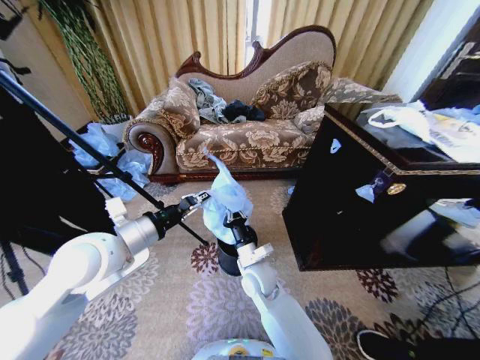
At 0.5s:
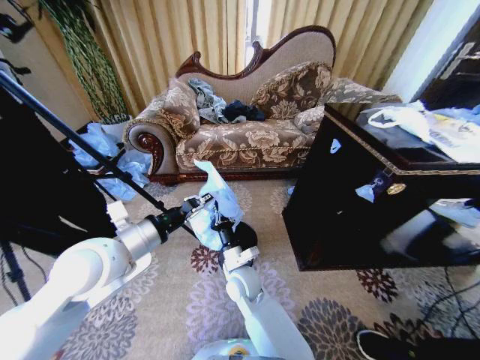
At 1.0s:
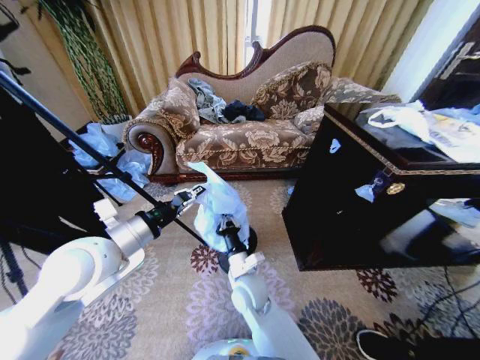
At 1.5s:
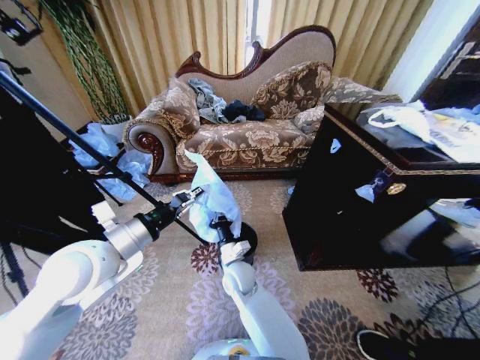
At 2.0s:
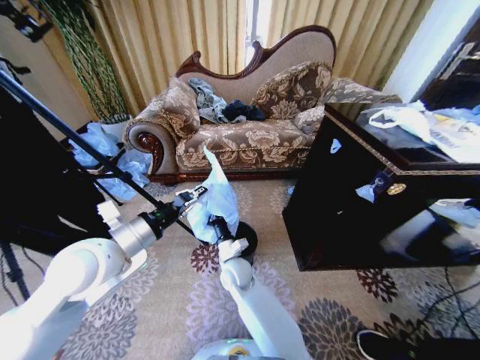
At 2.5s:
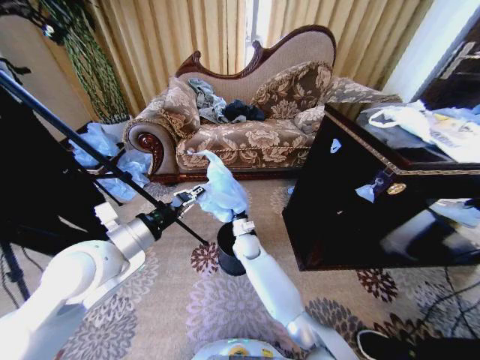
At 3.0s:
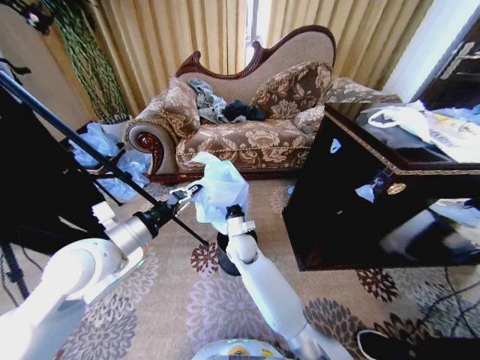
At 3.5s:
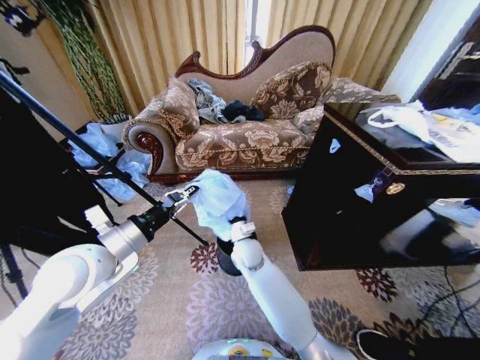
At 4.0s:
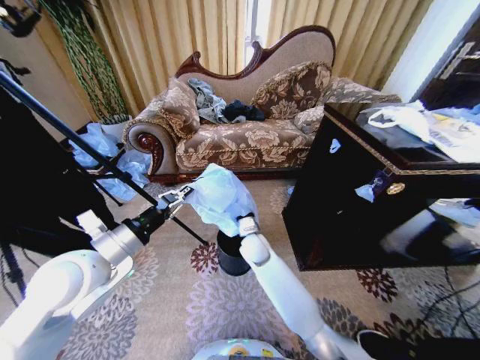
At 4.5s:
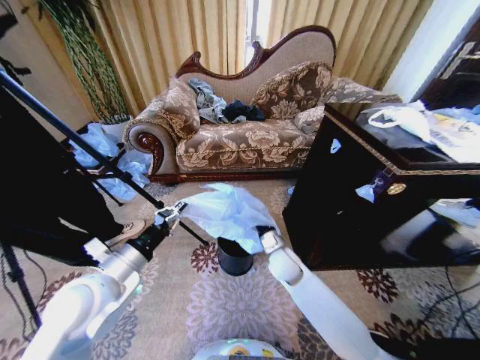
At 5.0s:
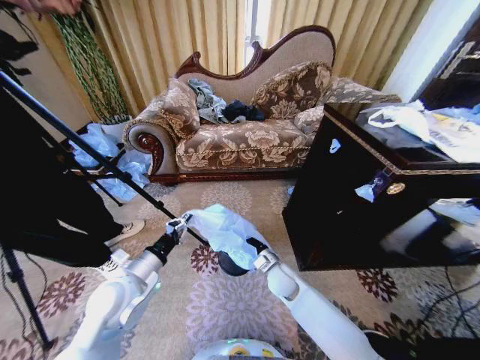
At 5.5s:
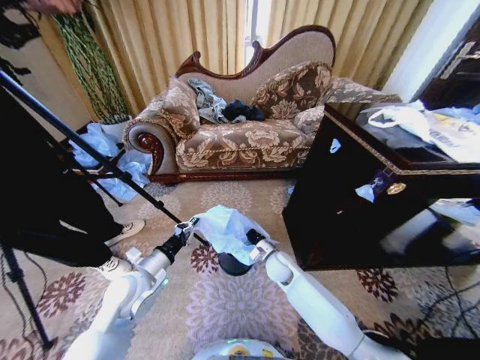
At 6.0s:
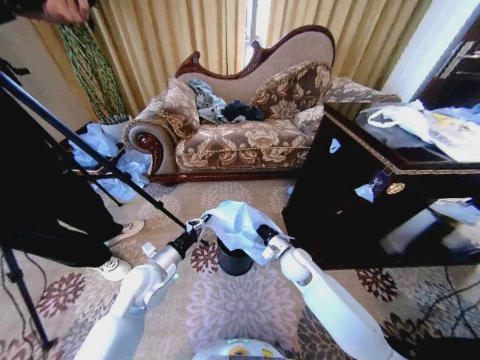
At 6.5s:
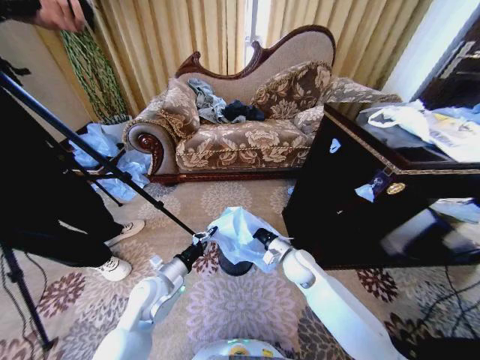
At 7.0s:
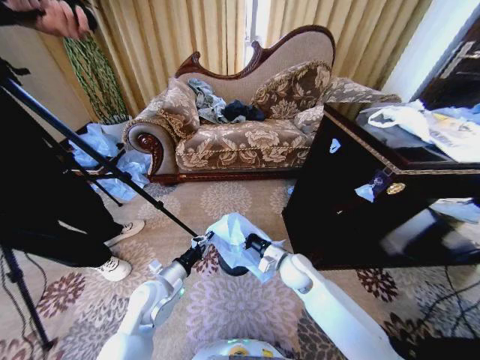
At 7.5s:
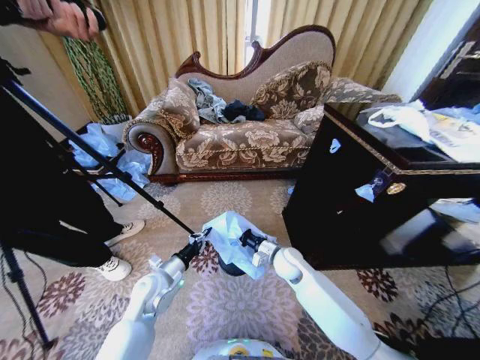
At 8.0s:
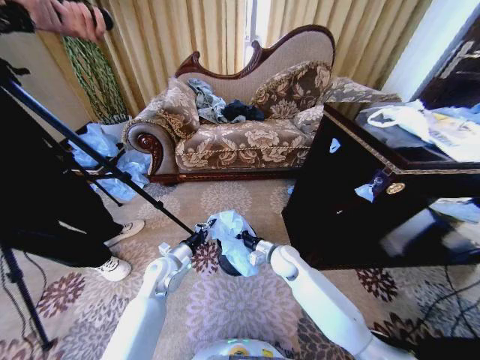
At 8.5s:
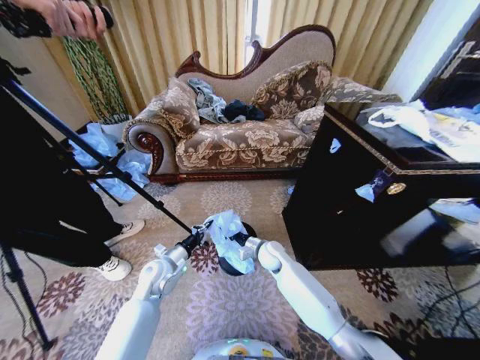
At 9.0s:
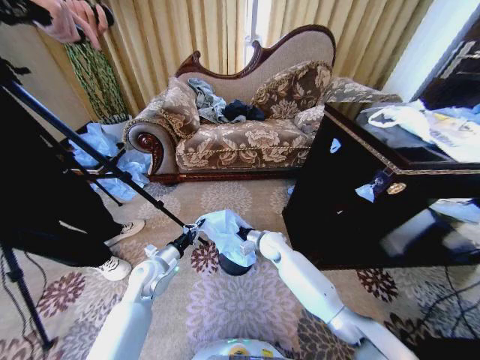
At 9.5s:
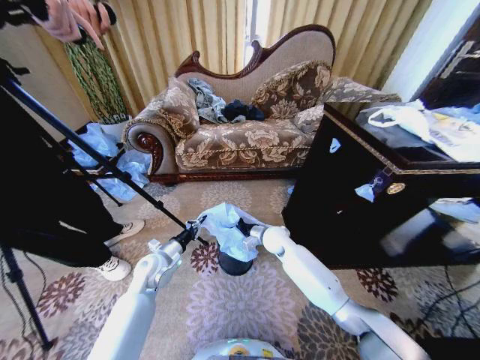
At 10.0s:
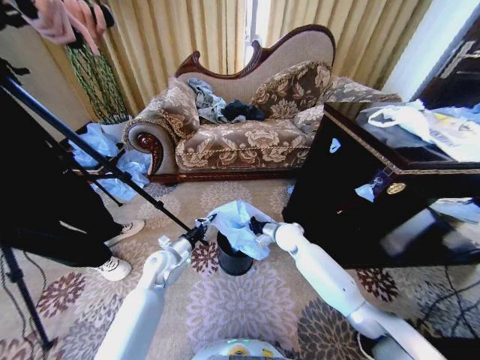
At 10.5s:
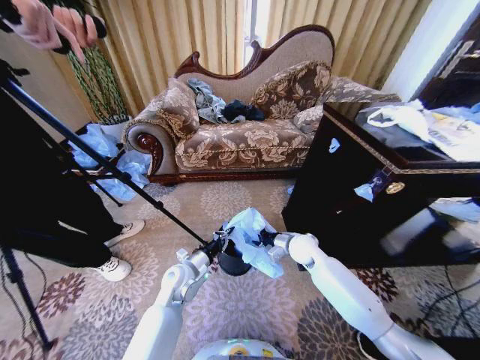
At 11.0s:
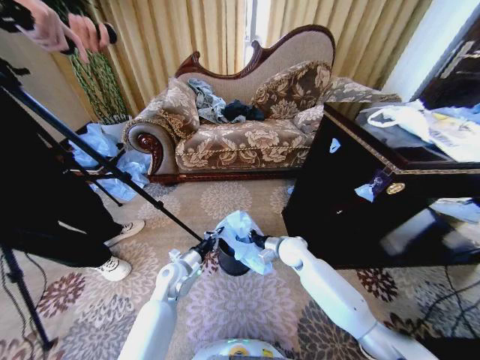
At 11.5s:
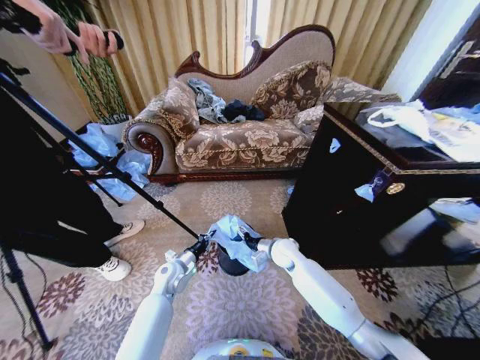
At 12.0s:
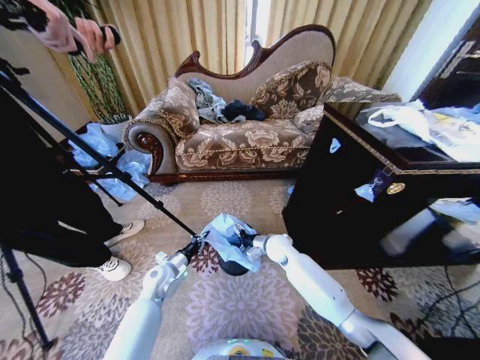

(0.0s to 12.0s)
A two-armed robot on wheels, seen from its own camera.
Task of the whole recording: Place a garbage bag over the trash bin.
0.0s - 2.0s: The right gripper travels to the left by approximately 5 cm.
2.0s - 4.0s: The right gripper travels to the right and forward by some 10 cm.
4.0s - 6.0s: The left gripper shifts about 15 cm downward. The right gripper is displaced to the right by roughly 10 cm.
6.0s - 8.0s: The left gripper is displaced downward by some 5 cm.
8.0s - 10.0s: The right gripper is displaced forward by approximately 10 cm, and opens its fingers.
10.0s - 12.0s: The right gripper ends up approximately 5 cm from where it was; the left gripper shifts roughly 5 cm downward, and moves roughly 5 cm to the right and comes back.

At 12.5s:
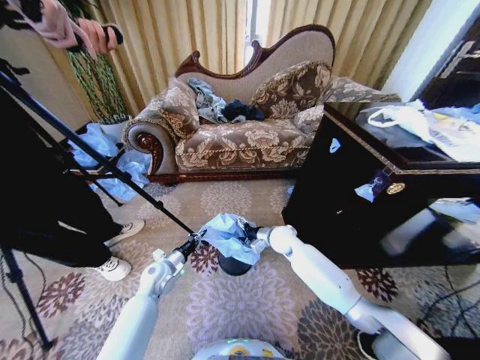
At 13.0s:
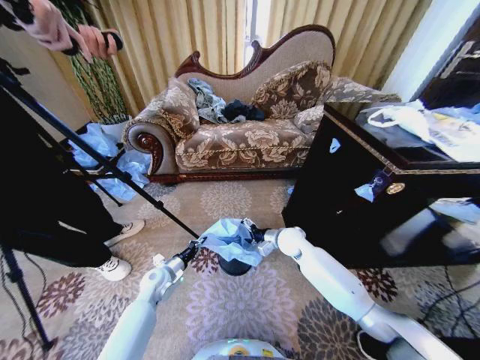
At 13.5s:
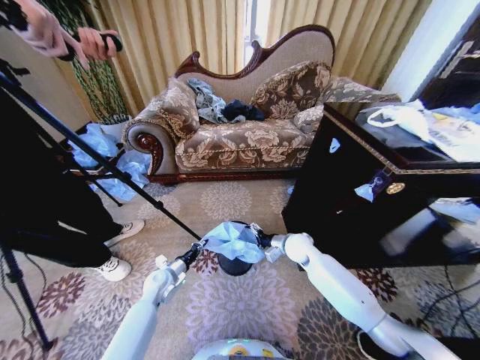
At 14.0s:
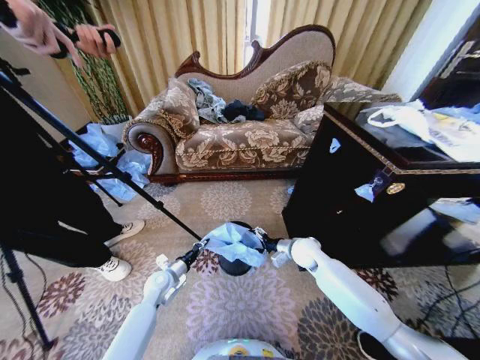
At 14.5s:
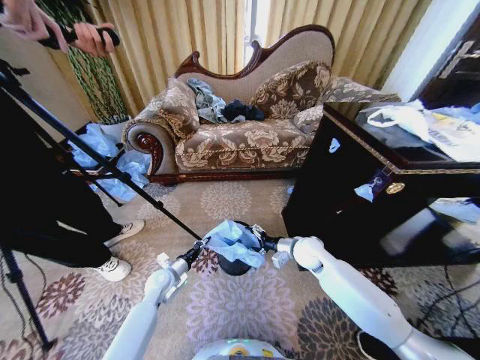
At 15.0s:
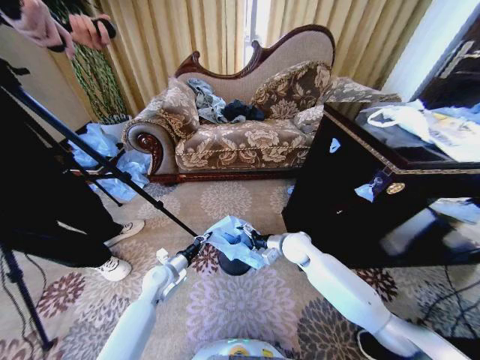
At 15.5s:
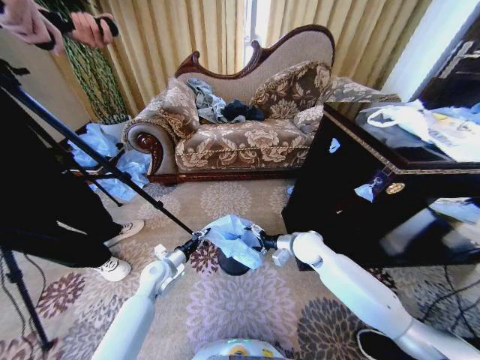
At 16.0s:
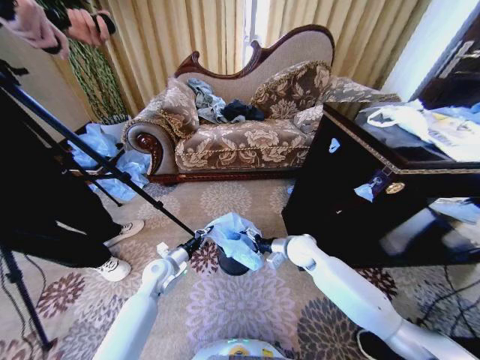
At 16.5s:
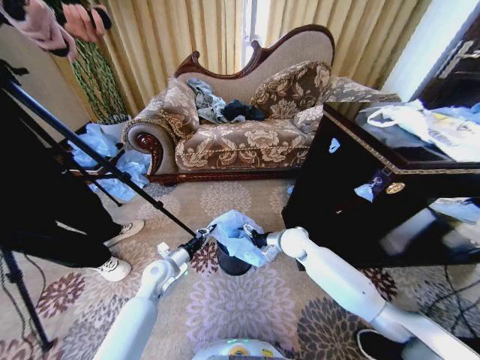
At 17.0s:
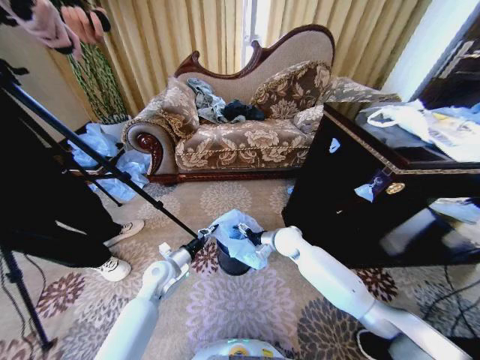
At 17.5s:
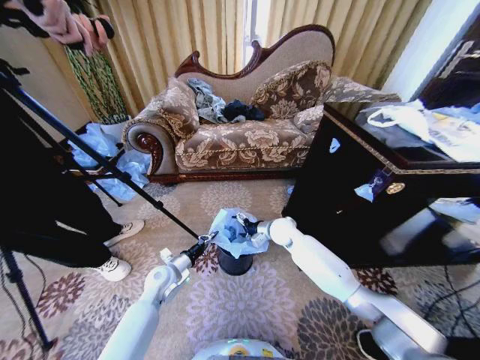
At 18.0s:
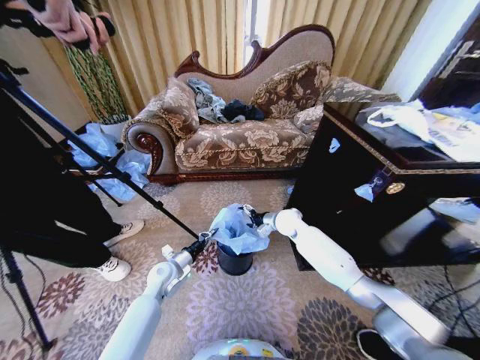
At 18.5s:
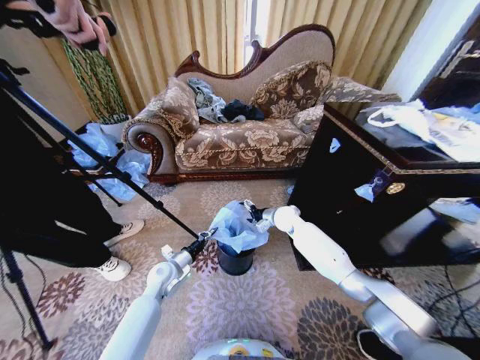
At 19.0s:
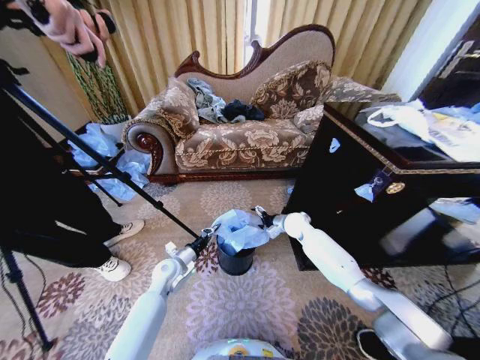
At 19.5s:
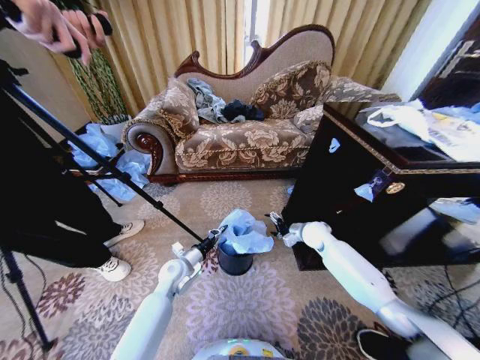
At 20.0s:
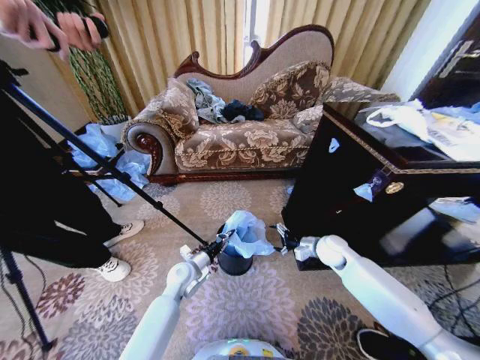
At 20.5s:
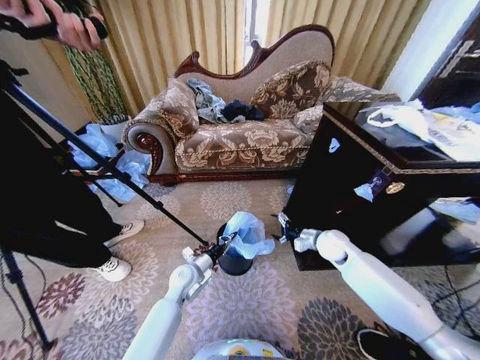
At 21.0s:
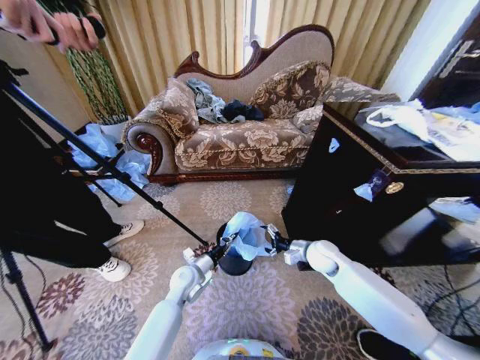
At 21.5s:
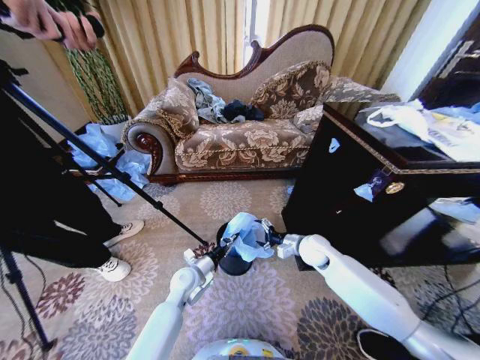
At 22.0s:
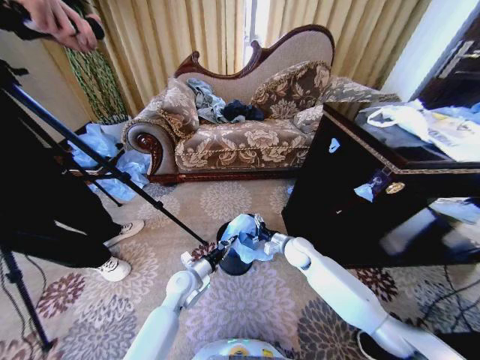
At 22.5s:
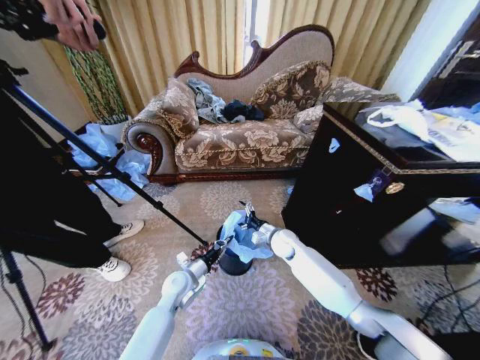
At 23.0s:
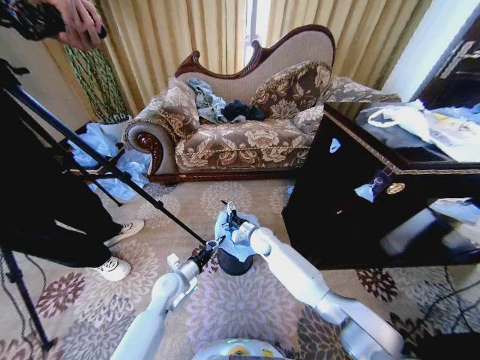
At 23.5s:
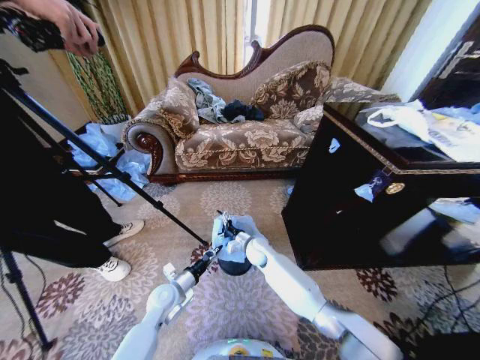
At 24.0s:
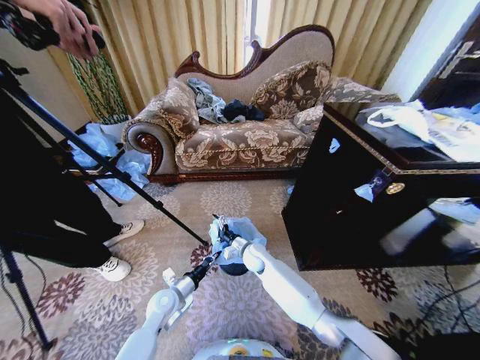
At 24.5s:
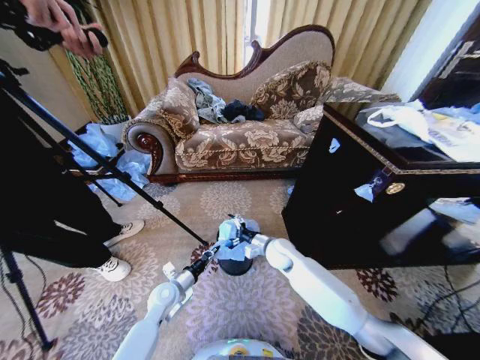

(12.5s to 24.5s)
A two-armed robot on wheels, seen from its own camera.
Task of the whole recording: Place a garbage bag over the trash bin.
12.5s - 14.5s: The right gripper goes some 10 cm to the right and backward.
14.5s - 16.5s: The right gripper ends up some 5 cm from where it was. The left gripper goes approximately 5 cm upward.
16.5s - 18.5s: The right gripper is displaced forward by roughly 10 cm.
18.5s - 20.5s: The left gripper travels to the right by some 5 cm; the right gripper shifts roughly 15 cm to the right and backward.
20.5s - 22.5s: The right gripper goes about 15 cm to the left.
22.5s - 24.5s: The right gripper travels to the left and back again, some 10 cm each way. Meanwhile the left gripper shifts by approximately 5 cm.

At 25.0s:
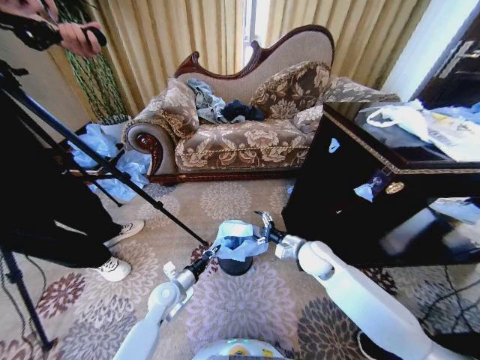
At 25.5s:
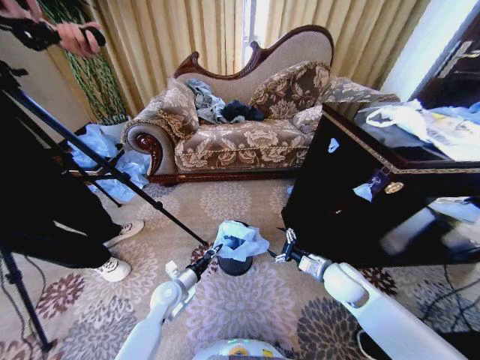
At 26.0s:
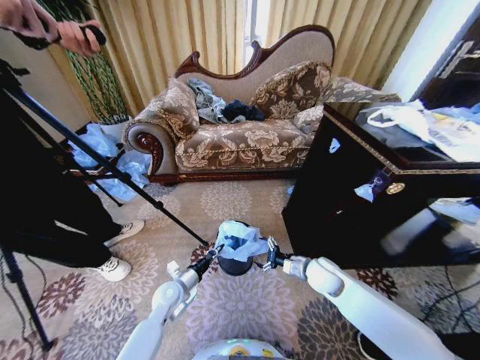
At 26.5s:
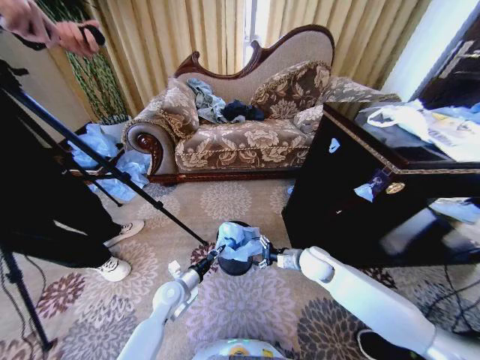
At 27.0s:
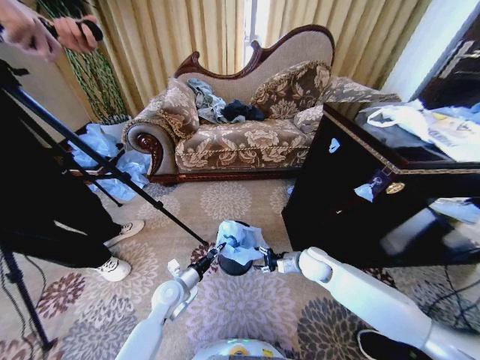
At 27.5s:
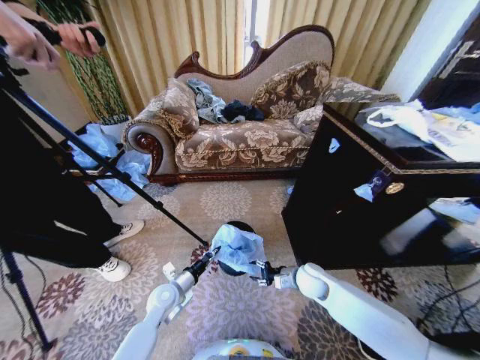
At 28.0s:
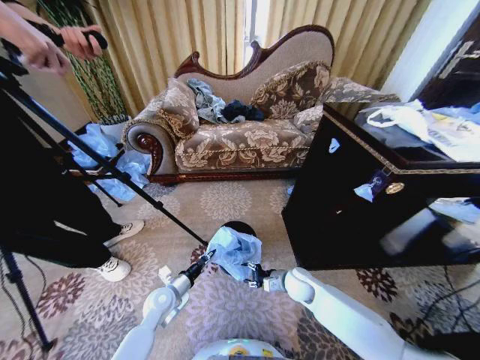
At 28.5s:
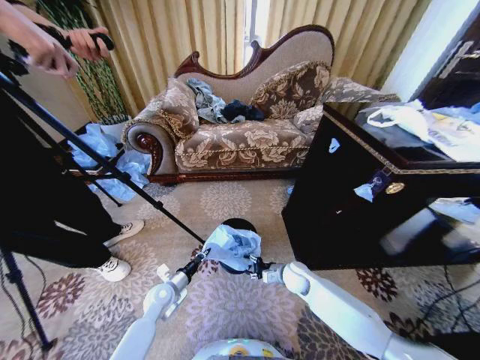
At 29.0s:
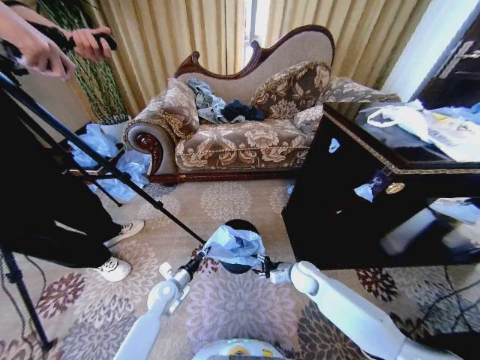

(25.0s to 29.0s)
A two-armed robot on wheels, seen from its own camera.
Task of the whole recording: Place a garbage bag over the trash bin.
25.0s - 27.0s: The right gripper shifts about 5 cm downward.
27.0s - 29.0s: The right gripper moves downward, some 5 cm, while the left gripper ends up about 5 cm from where it was.
